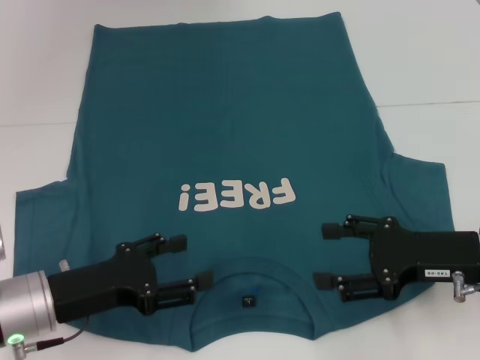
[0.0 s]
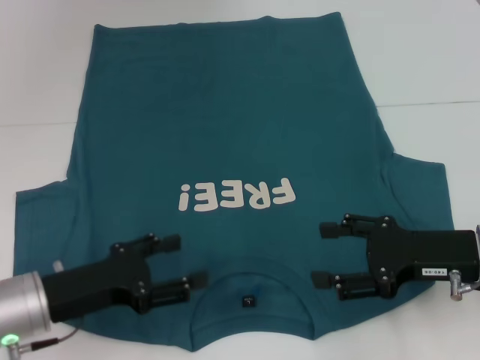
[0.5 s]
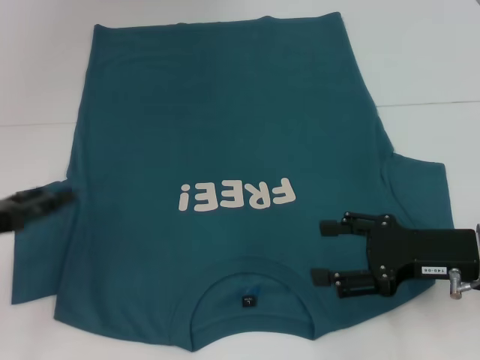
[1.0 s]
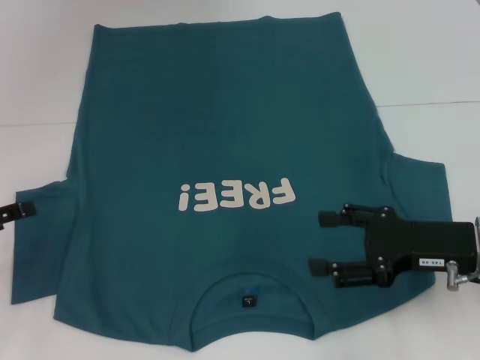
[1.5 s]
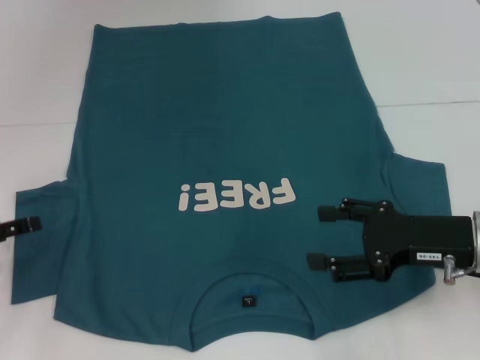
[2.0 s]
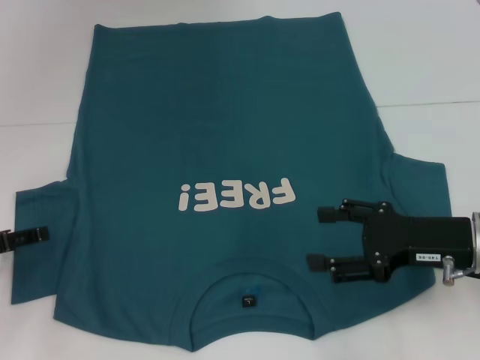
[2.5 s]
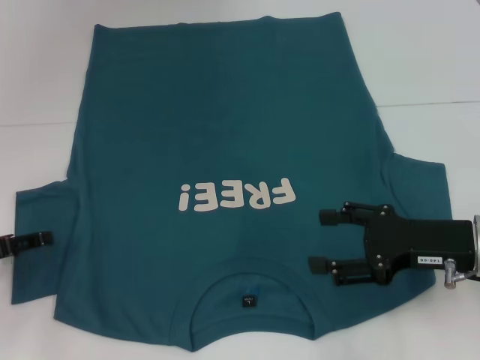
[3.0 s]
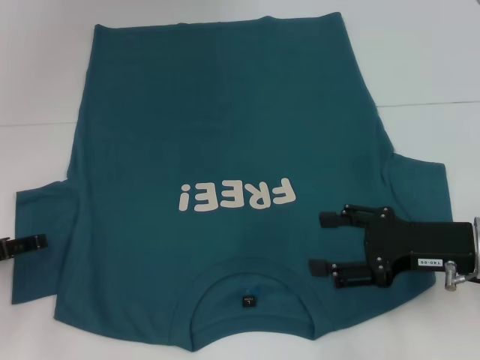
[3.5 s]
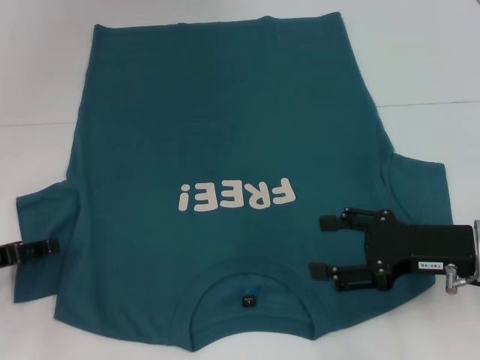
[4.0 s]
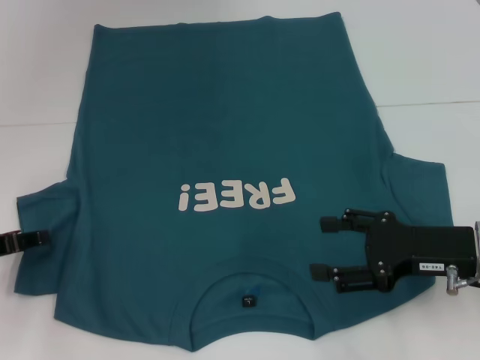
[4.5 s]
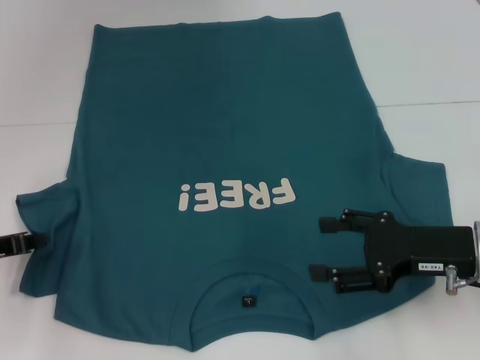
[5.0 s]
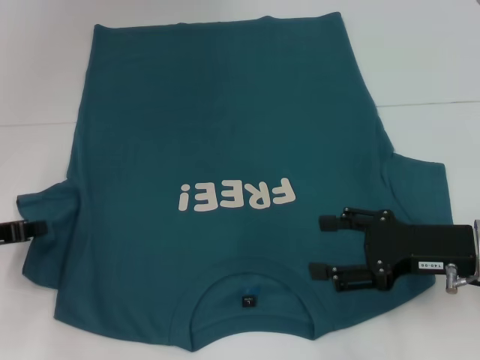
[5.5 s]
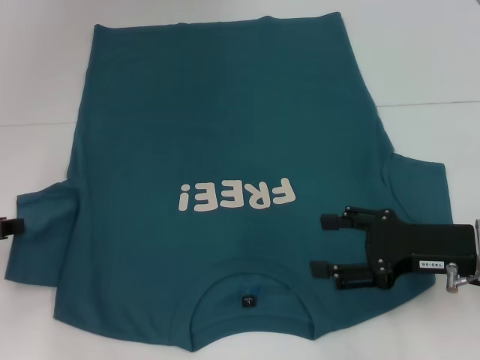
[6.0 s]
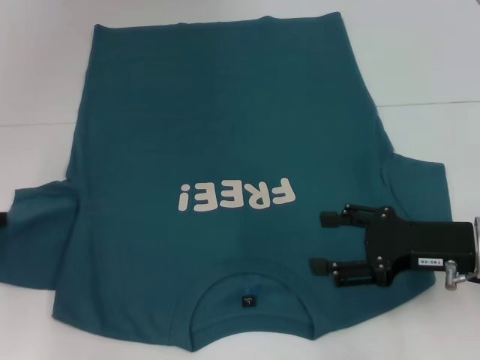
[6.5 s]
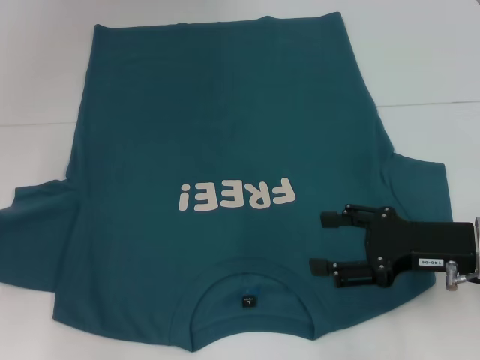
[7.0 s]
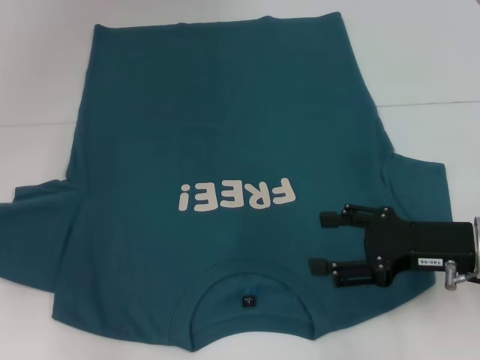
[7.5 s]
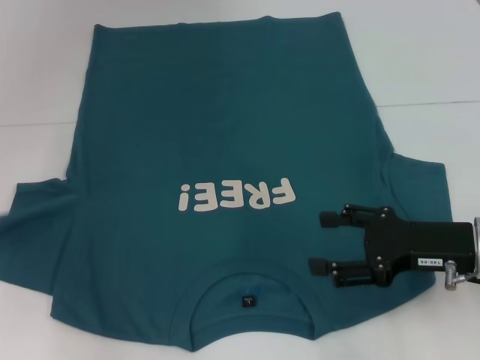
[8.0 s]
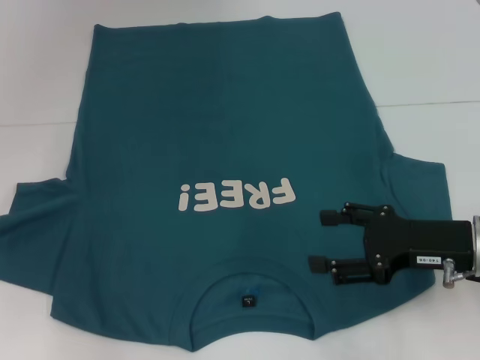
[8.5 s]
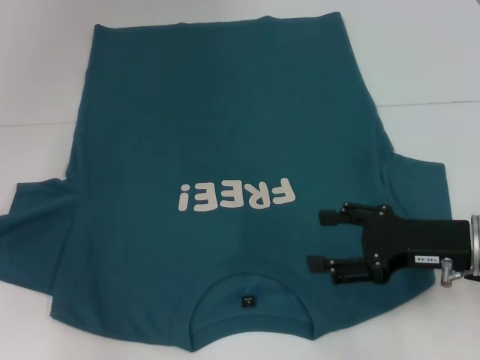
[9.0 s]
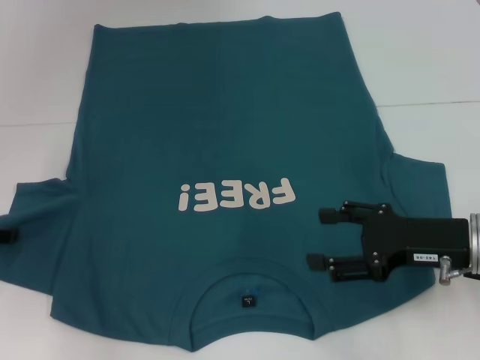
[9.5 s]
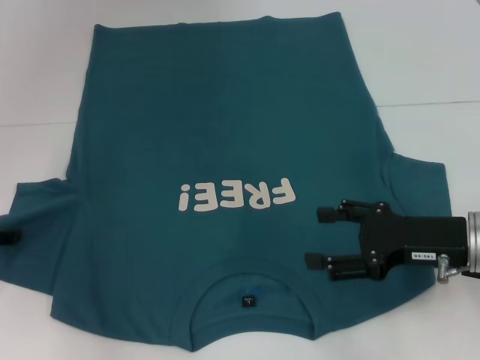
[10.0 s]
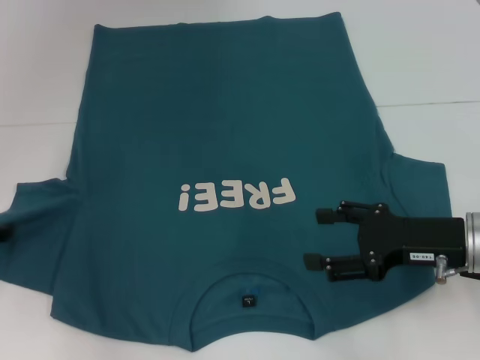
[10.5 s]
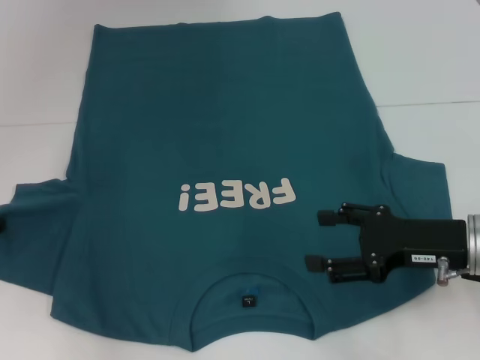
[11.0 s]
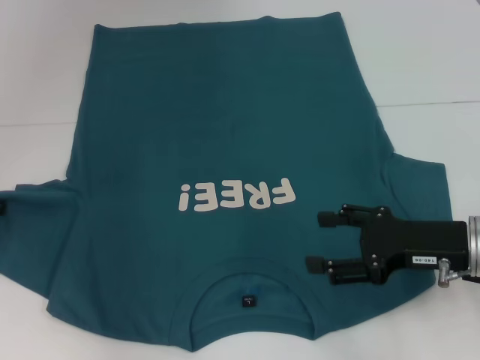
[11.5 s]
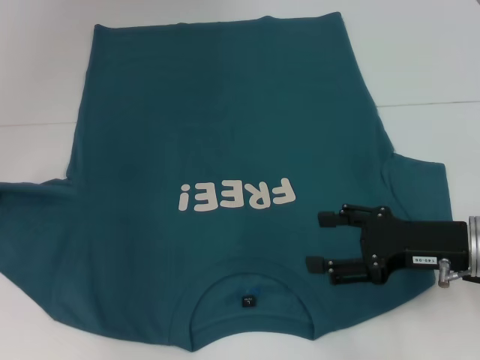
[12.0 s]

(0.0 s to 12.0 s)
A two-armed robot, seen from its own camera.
0.0 s - 2.0 s: The left gripper moves to the left, some 15 cm.
2.0 s - 4.0 s: The grippers move only a little.
4.0 s - 6.0 s: The left gripper closes.
6.0 s - 8.0 s: There are only small adjustments of the grippers.
10.0 s - 12.0 s: The left gripper changes place by approximately 5 cm, and closes.

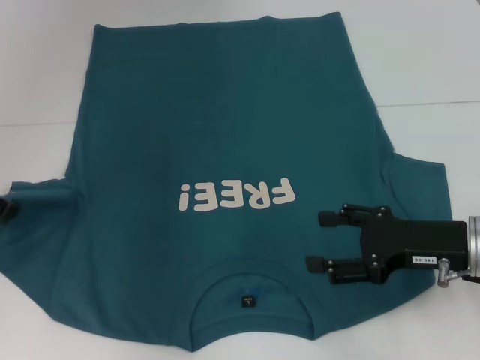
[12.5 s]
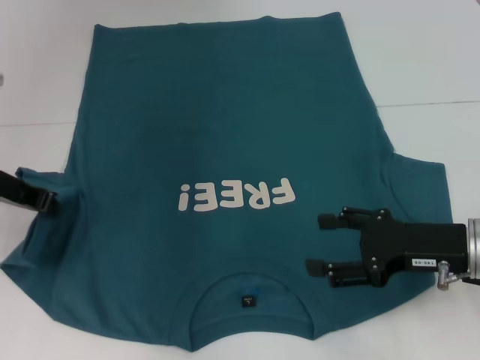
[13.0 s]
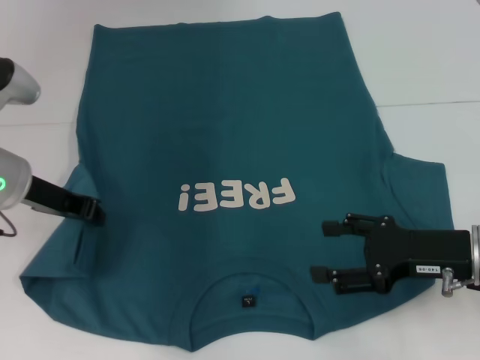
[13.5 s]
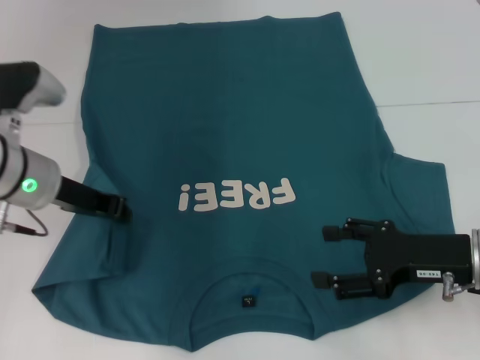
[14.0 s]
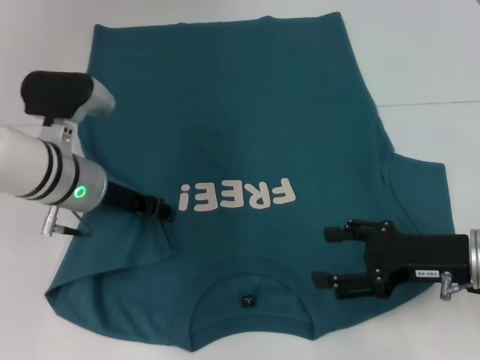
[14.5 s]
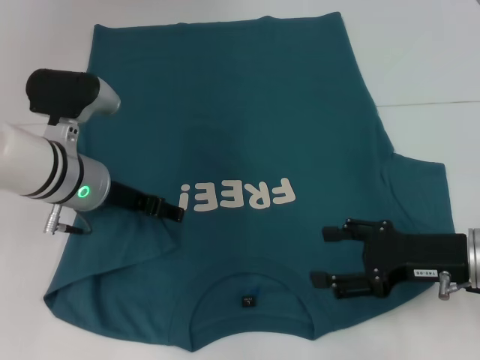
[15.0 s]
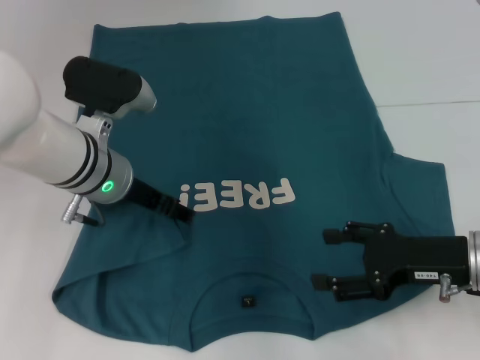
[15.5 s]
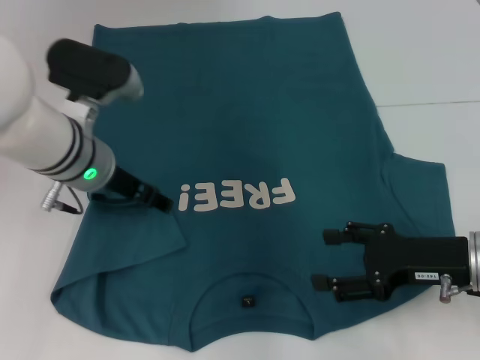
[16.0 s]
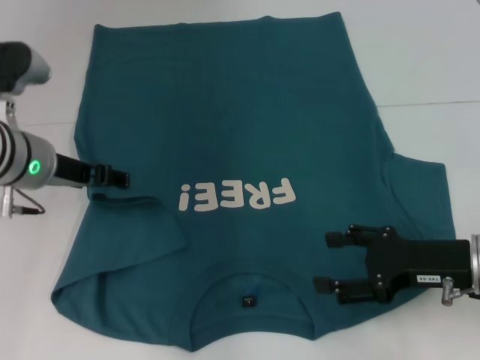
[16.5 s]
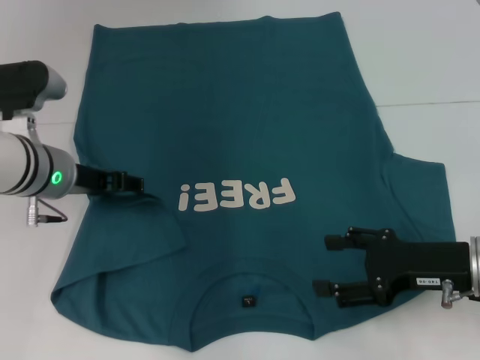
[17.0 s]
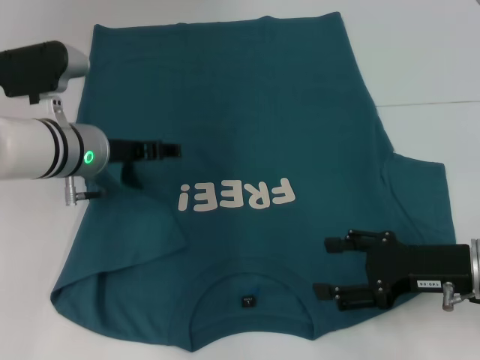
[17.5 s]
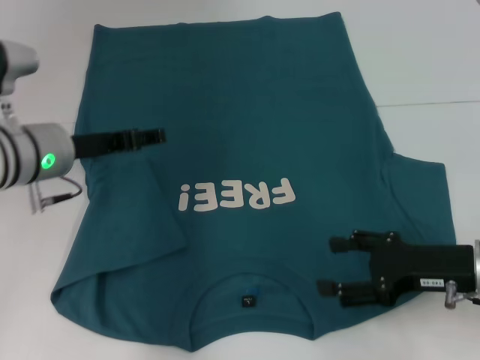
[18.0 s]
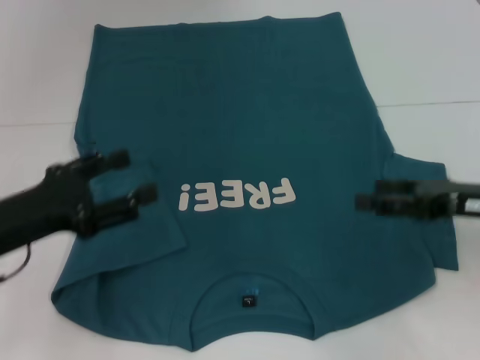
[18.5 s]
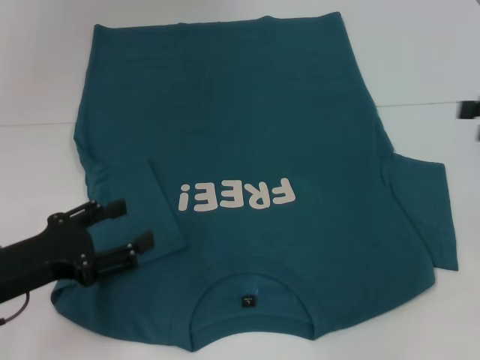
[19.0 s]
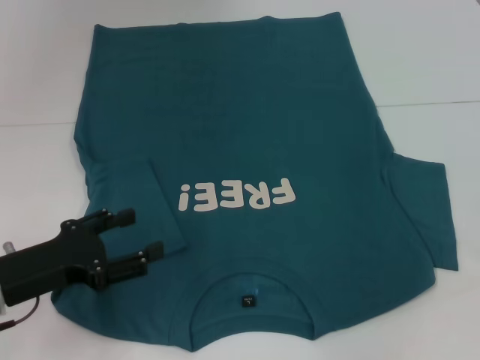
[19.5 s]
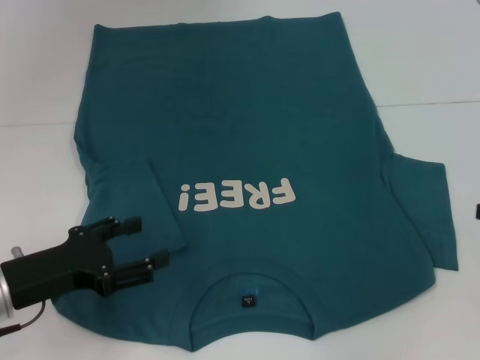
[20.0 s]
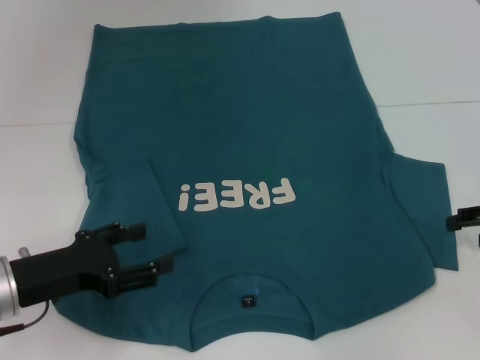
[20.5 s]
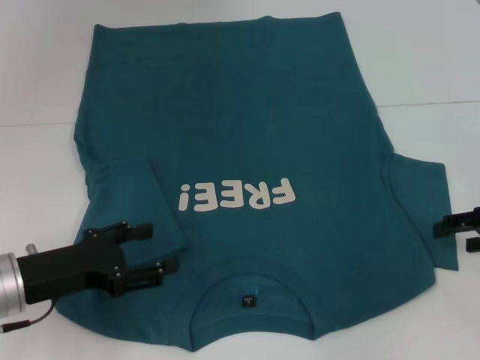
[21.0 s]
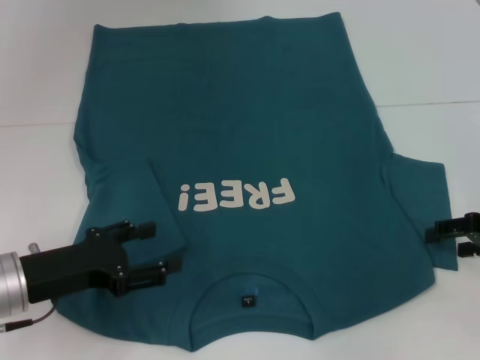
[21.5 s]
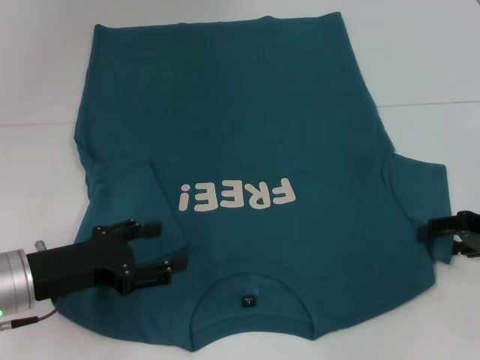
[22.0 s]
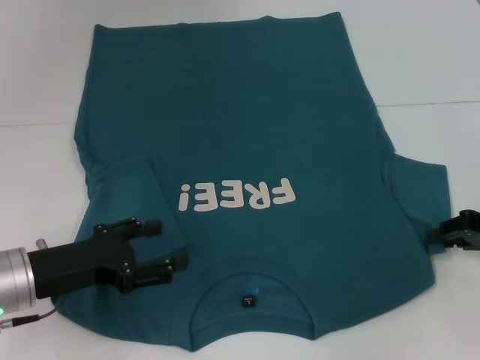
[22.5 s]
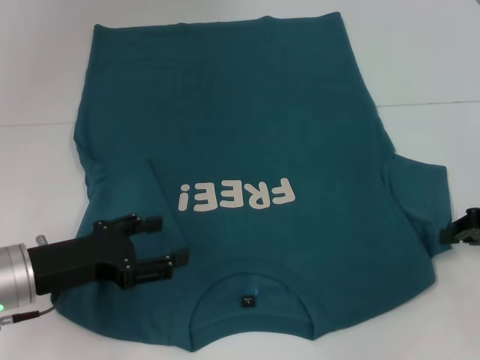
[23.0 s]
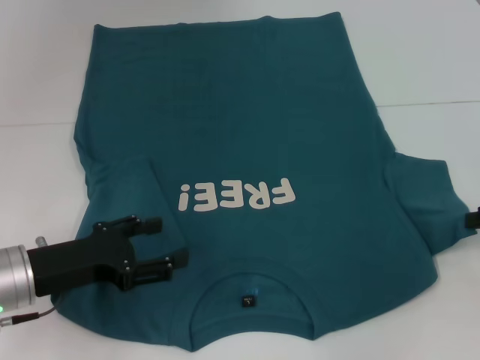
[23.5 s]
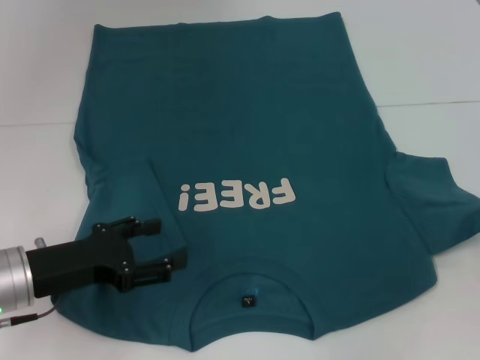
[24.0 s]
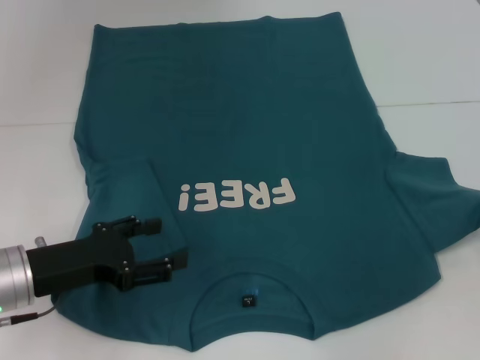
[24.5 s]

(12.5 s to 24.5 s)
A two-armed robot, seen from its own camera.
Step, 12.5 s - 18.0 s: Fold the bottom left sleeve with your left hand.
12.5 s - 14.5 s: The left gripper goes about 15 cm to the right.
14.5 s - 16.5 s: The left gripper opens its fingers.
16.5 s - 18.5 s: The left gripper shifts roughly 10 cm backward and to the left. The right gripper shifts by approximately 5 cm.
18.5 s - 20.5 s: The left gripper moves approximately 5 cm, while the right gripper goes some 10 cm to the right.
20.5 s - 22.5 s: The right gripper closes.
22.5 s - 24.5 s: The right gripper ends up approximately 5 cm from where it was, and closes up.

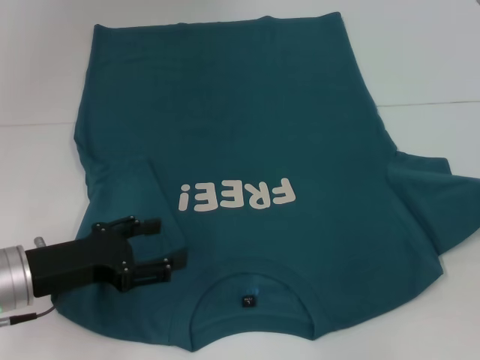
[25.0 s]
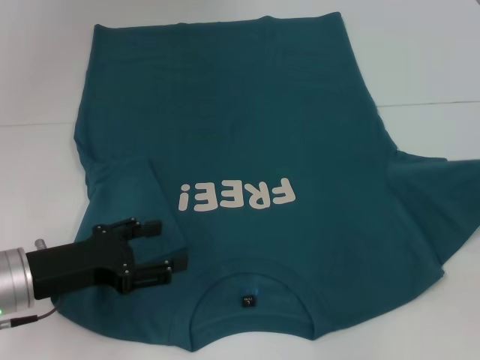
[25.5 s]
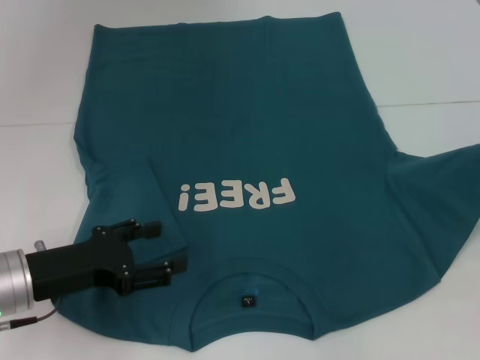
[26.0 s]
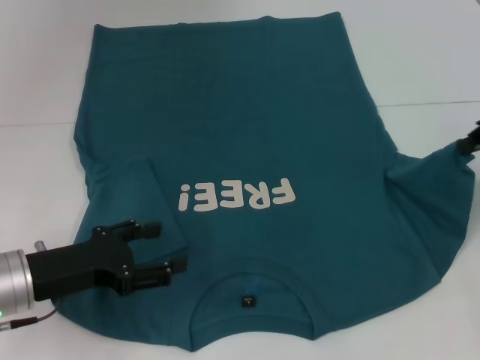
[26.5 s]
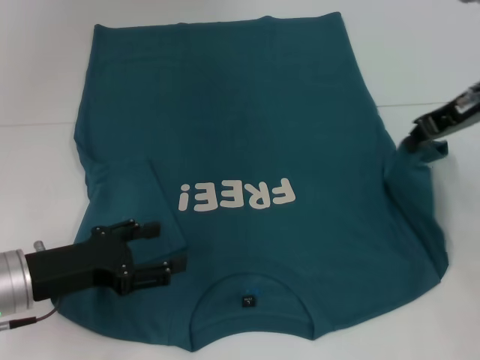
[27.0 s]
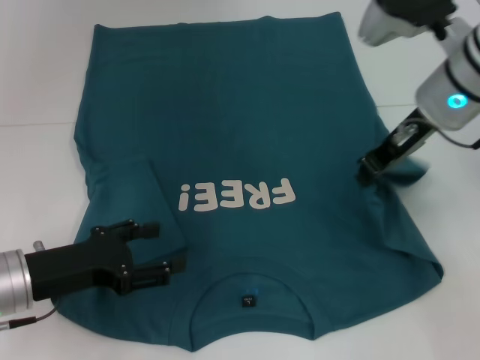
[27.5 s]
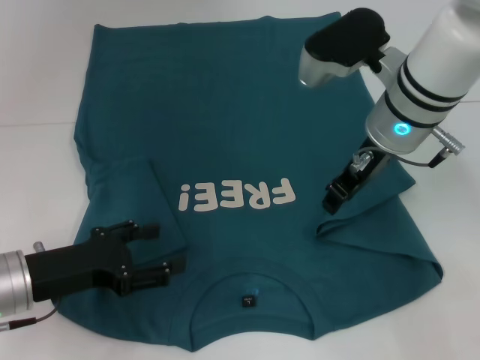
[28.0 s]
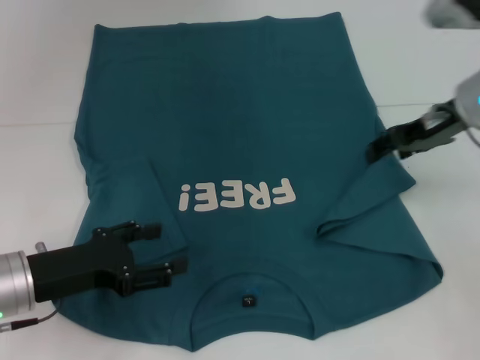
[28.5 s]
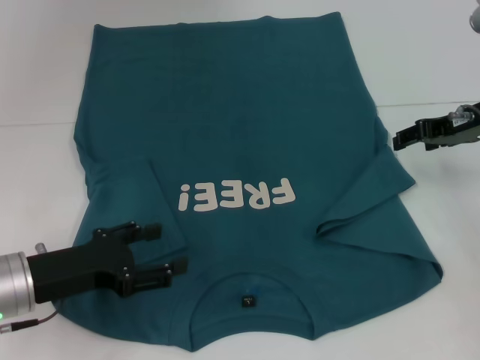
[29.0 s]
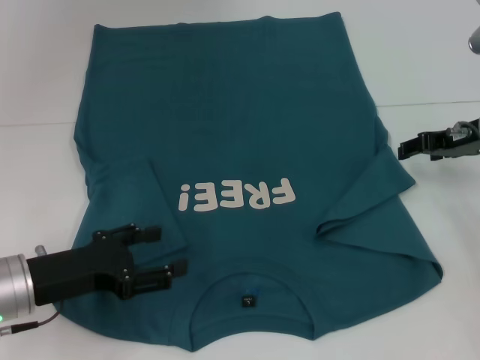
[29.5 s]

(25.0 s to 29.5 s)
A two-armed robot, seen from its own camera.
25.0 s - 27.0 s: The right gripper moves to the left, upward and forward, approximately 15 cm.
27.0 s - 29.5 s: The right gripper shifts about 10 cm downward, goes to the left and returns, approximately 10 cm each way, and opens.
